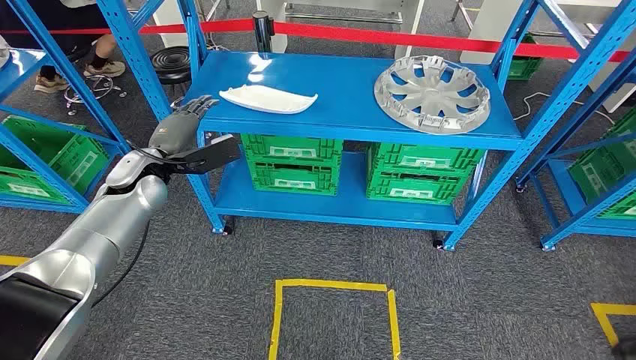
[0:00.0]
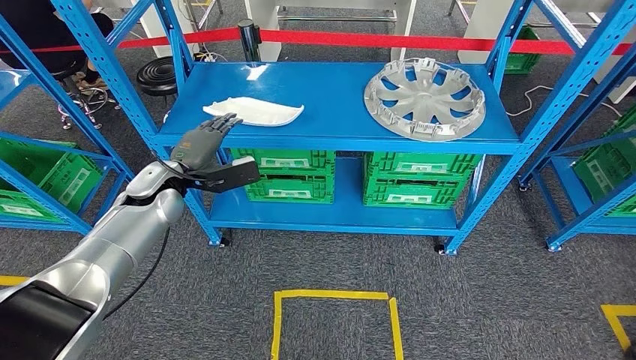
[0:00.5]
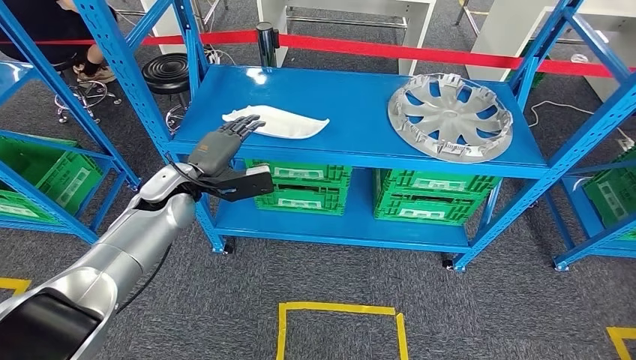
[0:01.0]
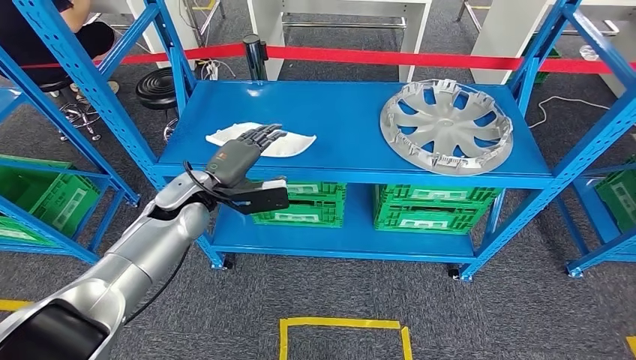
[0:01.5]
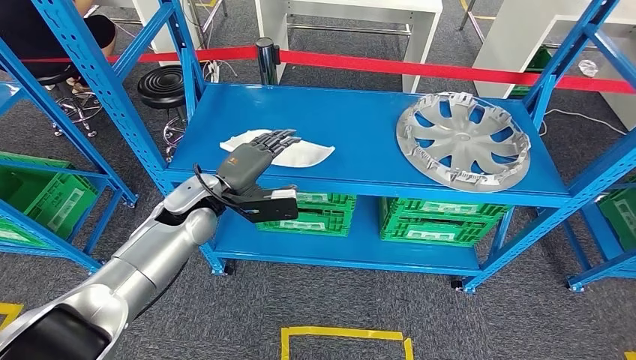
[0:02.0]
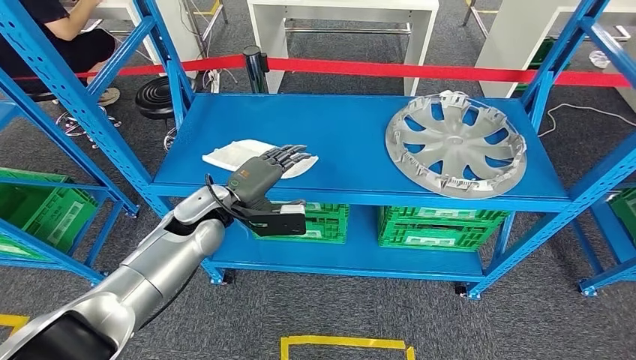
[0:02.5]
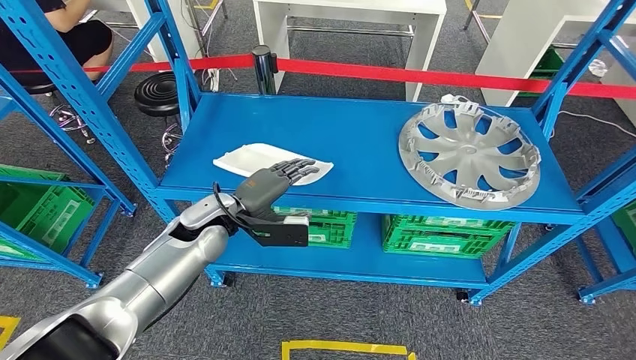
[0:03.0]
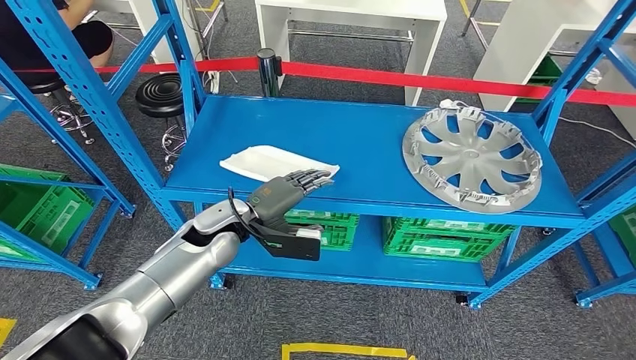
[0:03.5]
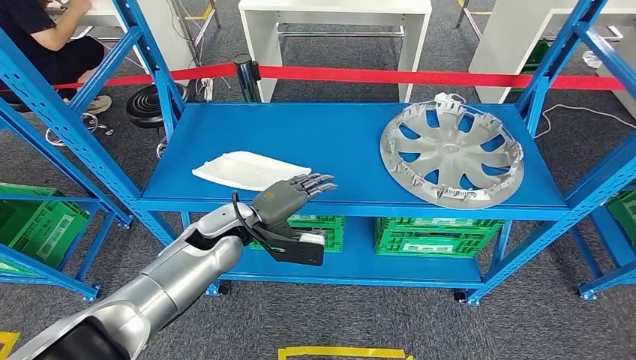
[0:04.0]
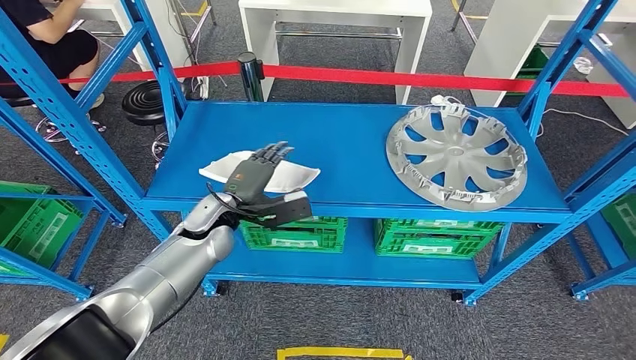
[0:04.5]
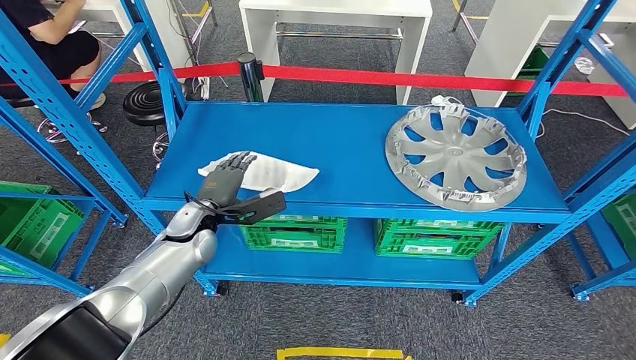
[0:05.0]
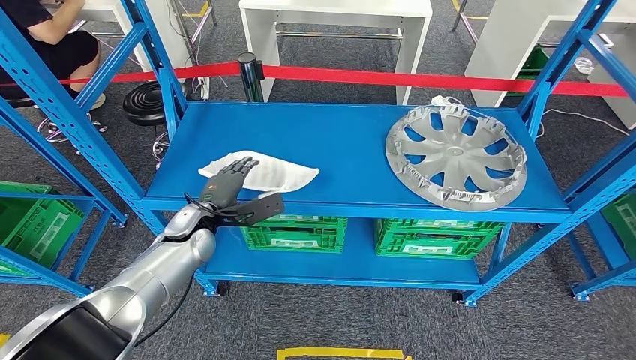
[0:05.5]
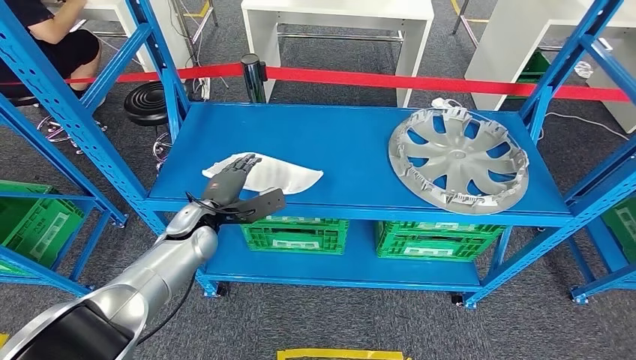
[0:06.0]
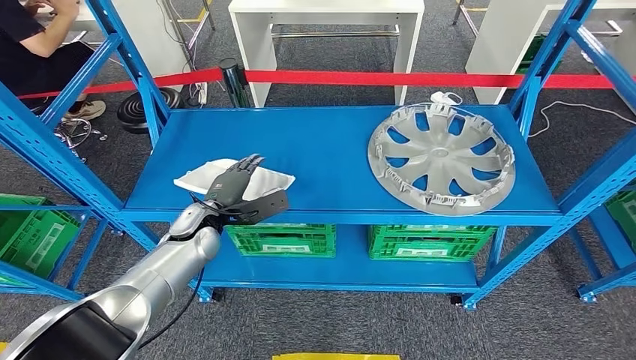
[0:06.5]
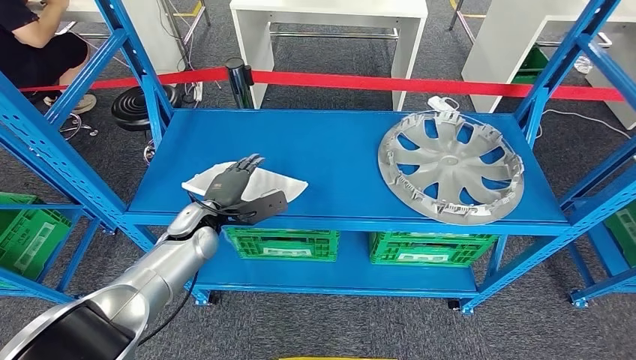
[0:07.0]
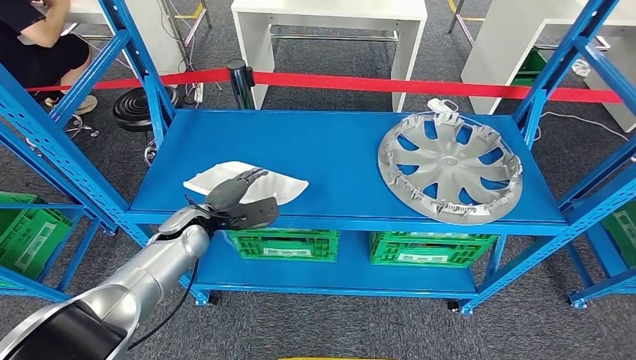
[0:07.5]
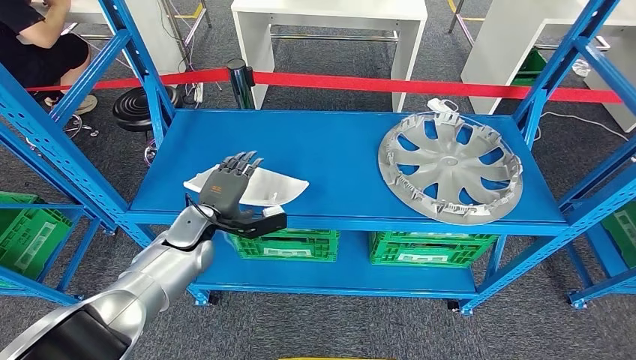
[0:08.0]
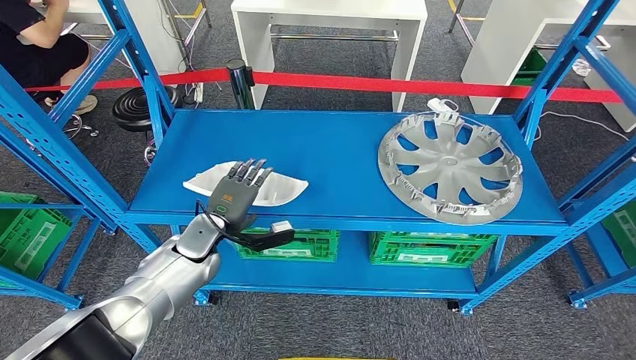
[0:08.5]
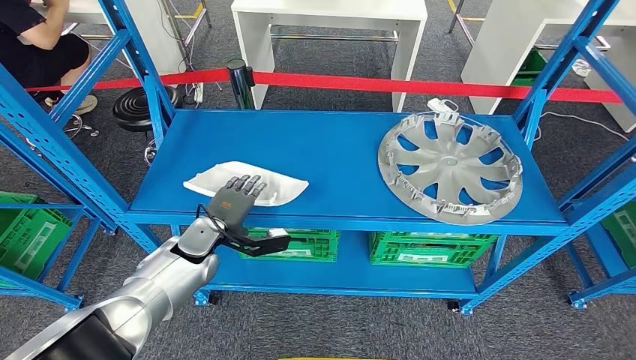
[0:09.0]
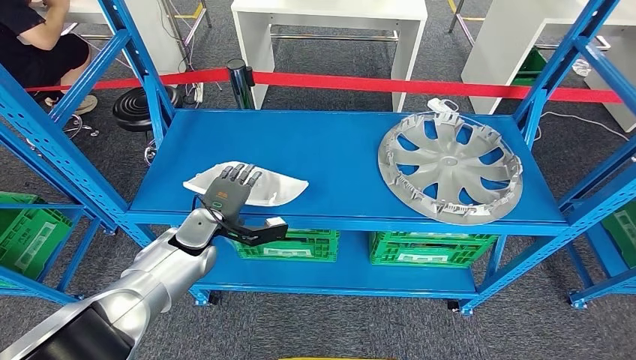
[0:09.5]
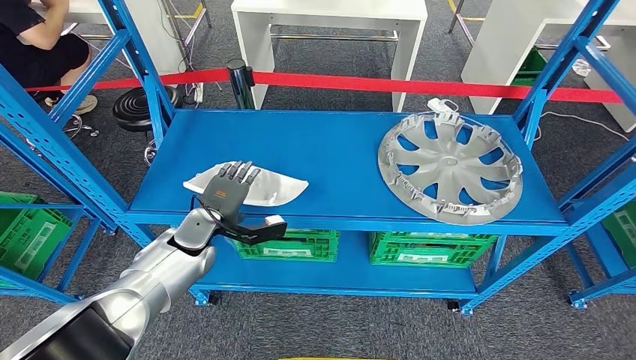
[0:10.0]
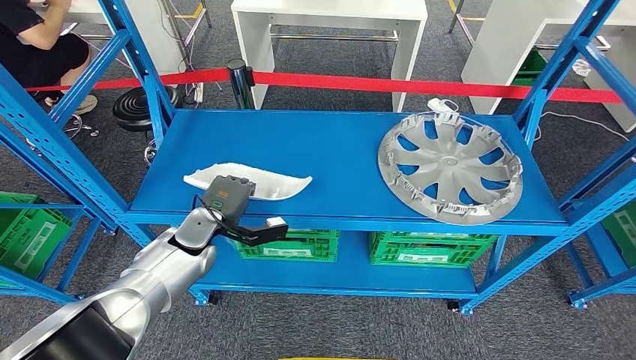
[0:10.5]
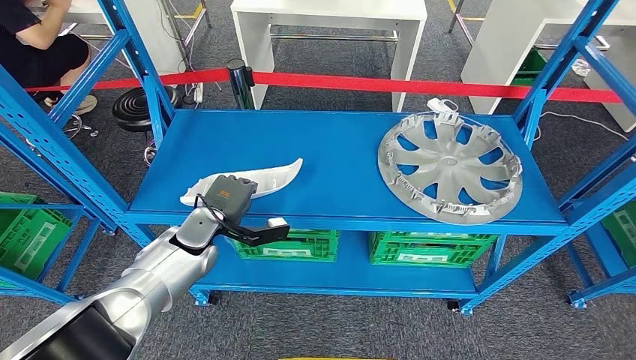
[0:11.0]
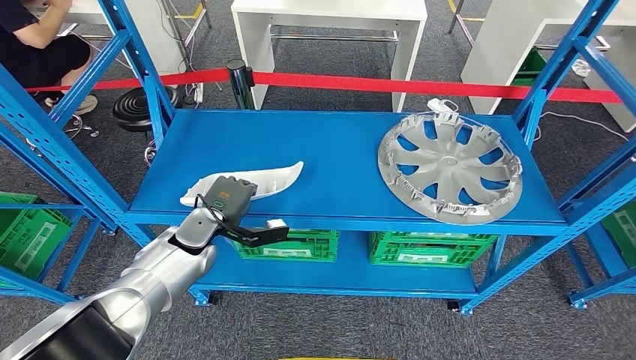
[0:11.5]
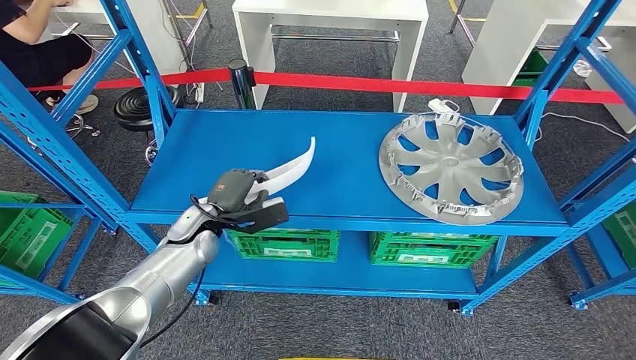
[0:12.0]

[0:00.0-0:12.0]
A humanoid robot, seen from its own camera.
0:08.0 to 0:10.0: The hands move only a little.

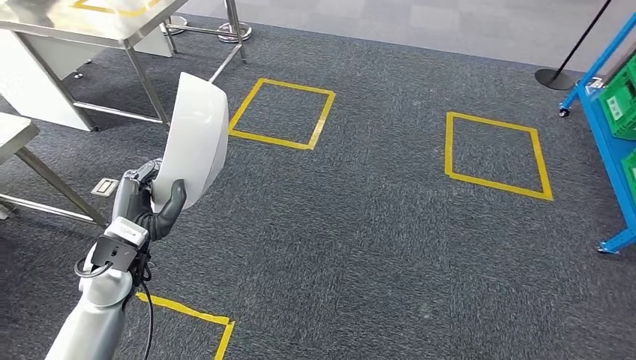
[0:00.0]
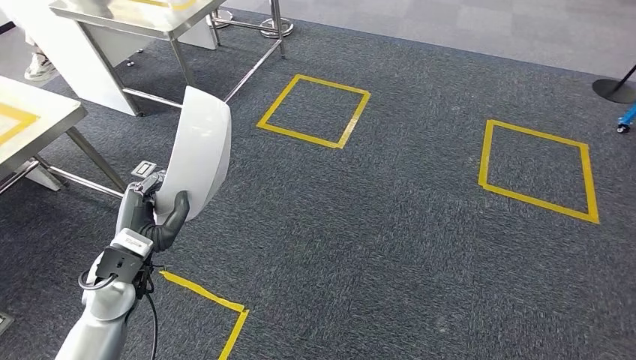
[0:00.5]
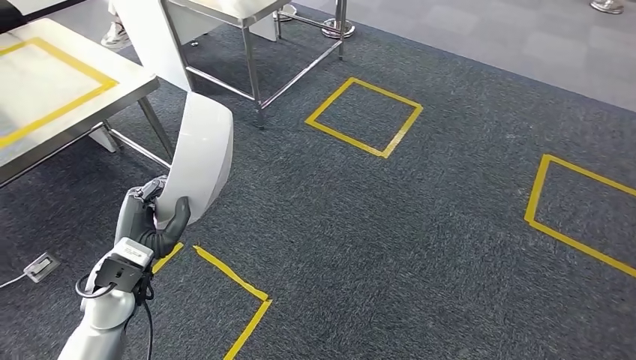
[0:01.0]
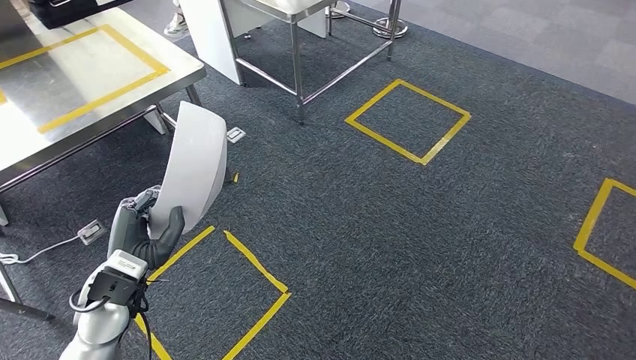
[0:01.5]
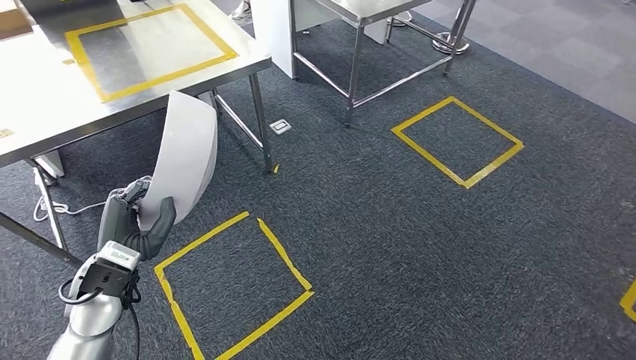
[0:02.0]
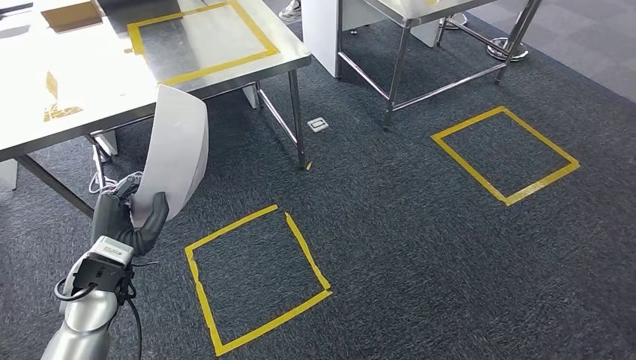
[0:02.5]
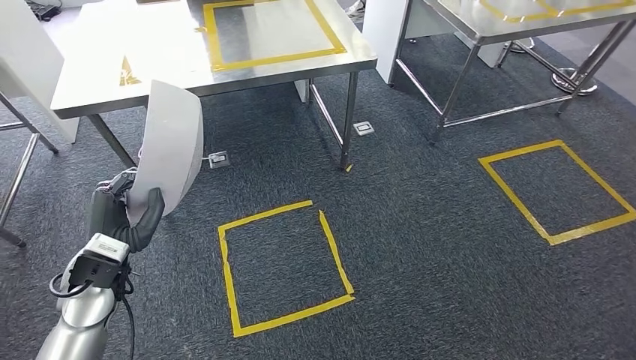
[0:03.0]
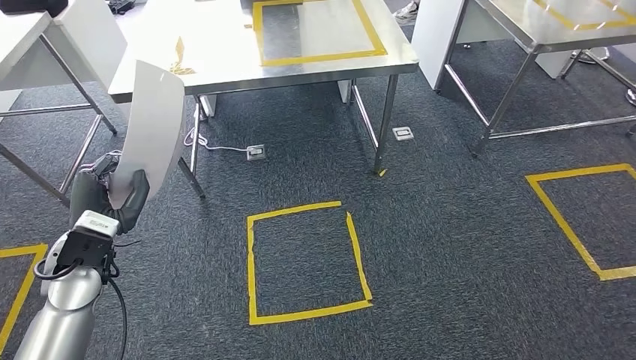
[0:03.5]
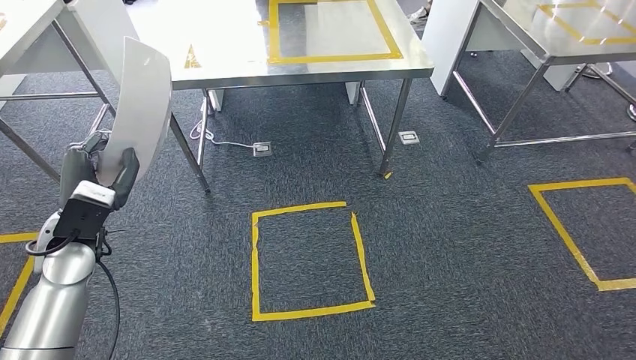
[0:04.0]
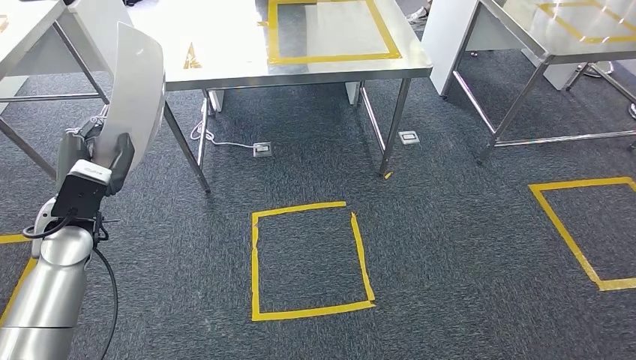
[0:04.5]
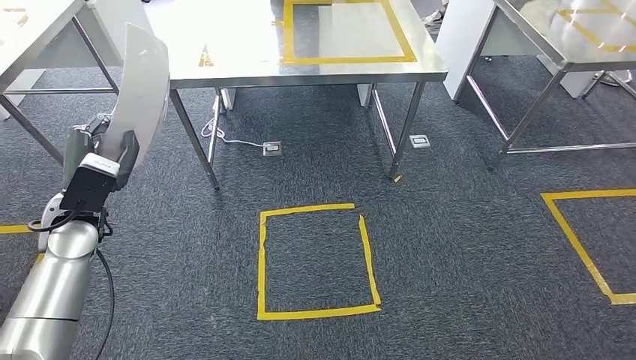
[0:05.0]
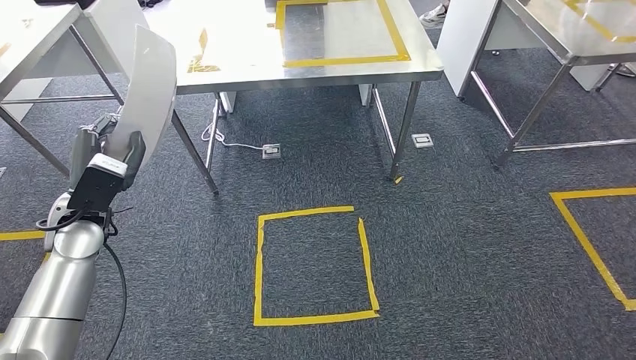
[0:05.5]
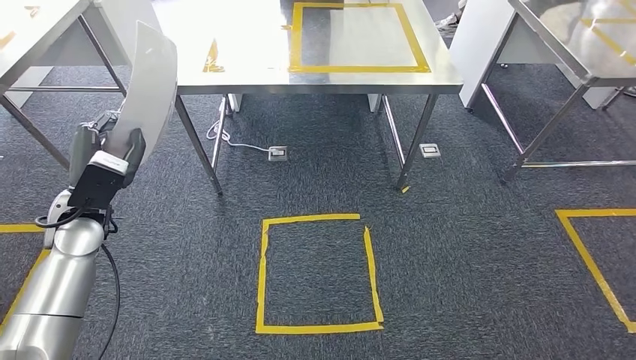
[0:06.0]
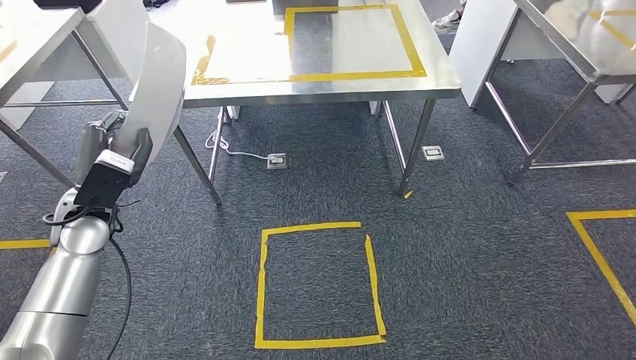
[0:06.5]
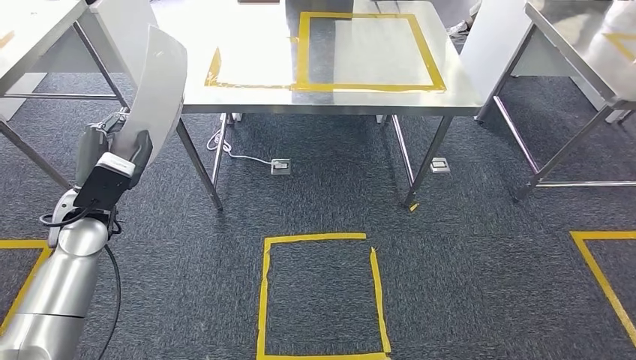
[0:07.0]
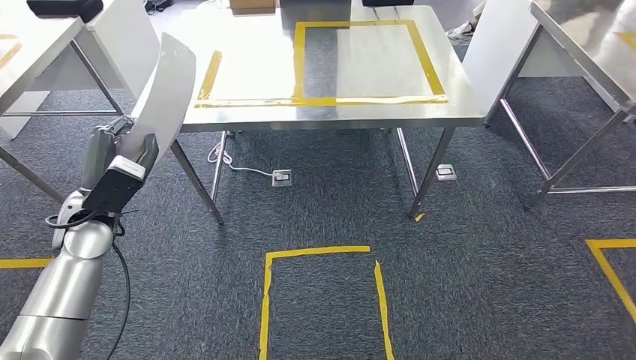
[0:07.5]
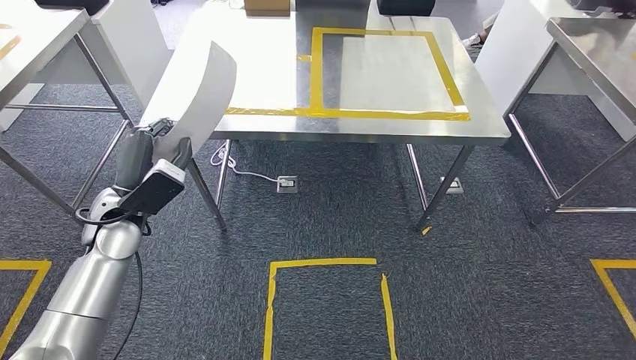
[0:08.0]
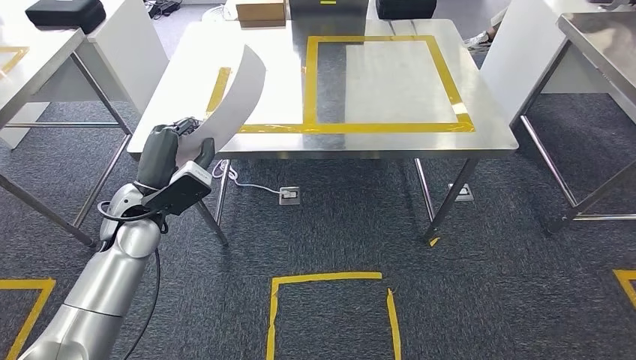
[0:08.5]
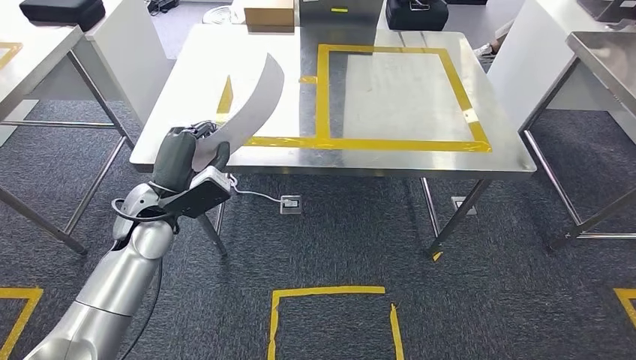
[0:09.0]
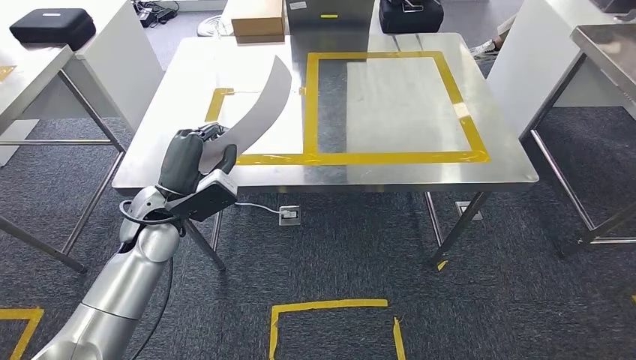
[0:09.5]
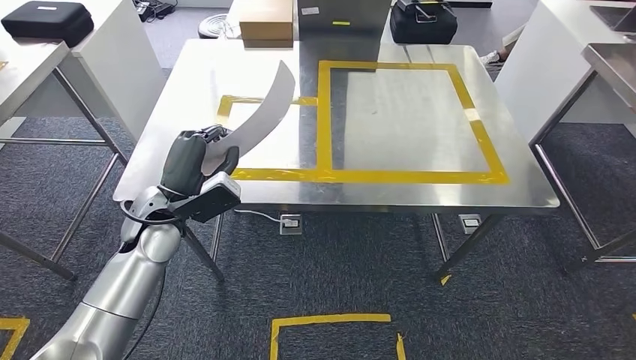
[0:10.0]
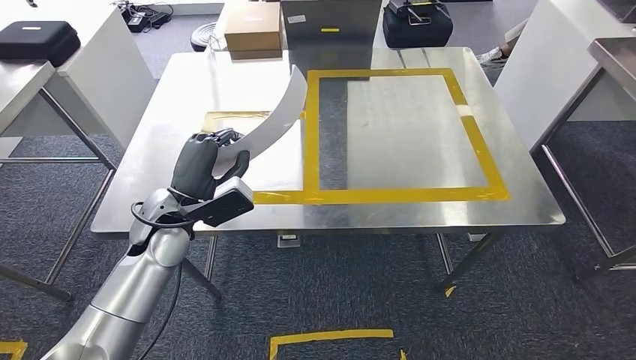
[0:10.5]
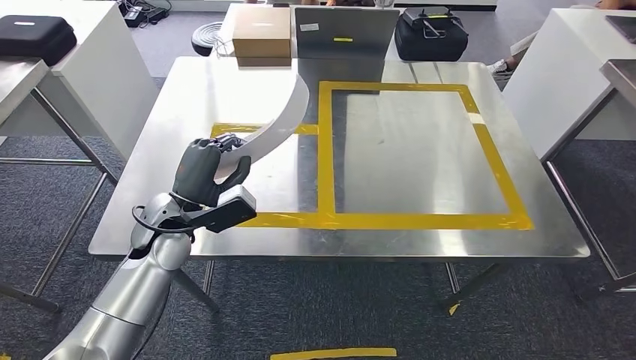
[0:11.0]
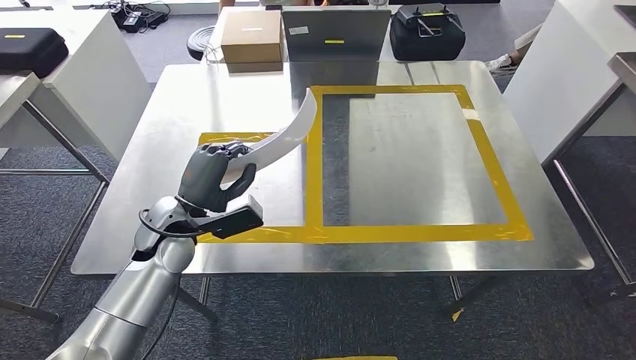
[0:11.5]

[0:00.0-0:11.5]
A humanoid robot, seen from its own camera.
Step, 0:00.0 to 0:06.5: Move the small component to the workbench.
